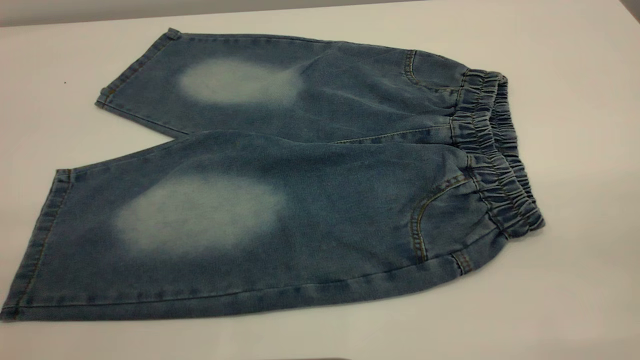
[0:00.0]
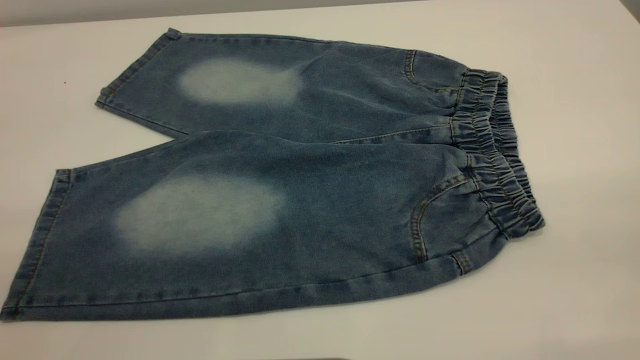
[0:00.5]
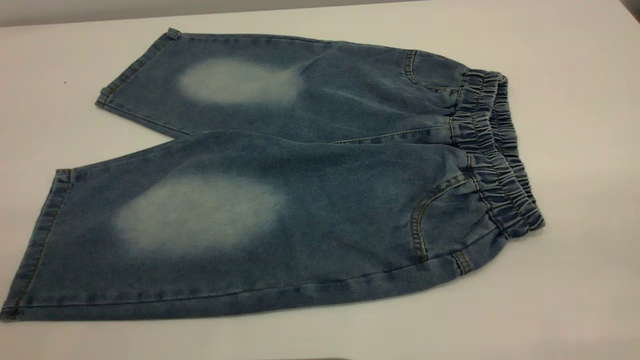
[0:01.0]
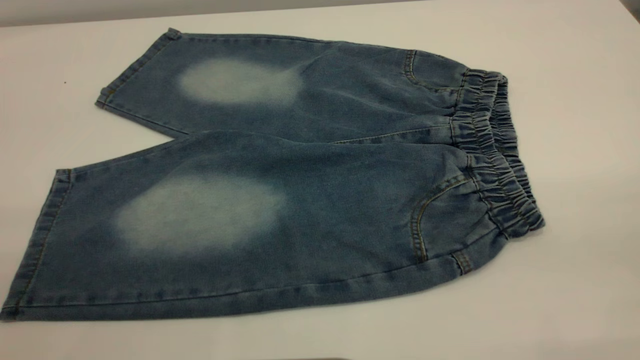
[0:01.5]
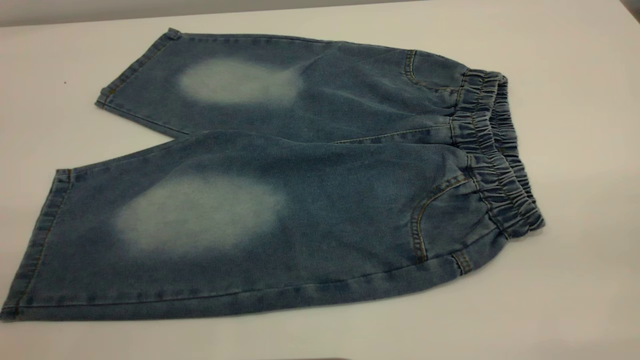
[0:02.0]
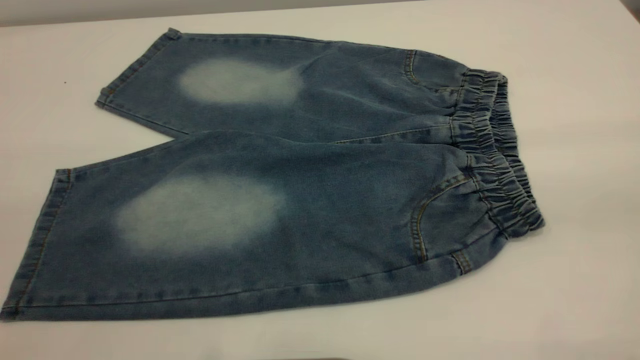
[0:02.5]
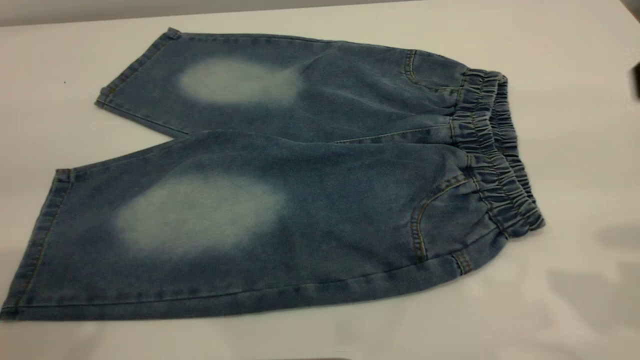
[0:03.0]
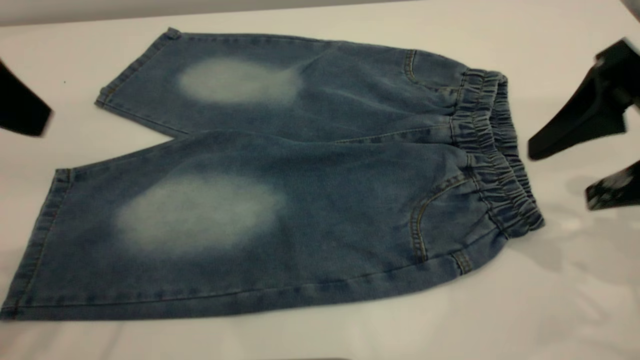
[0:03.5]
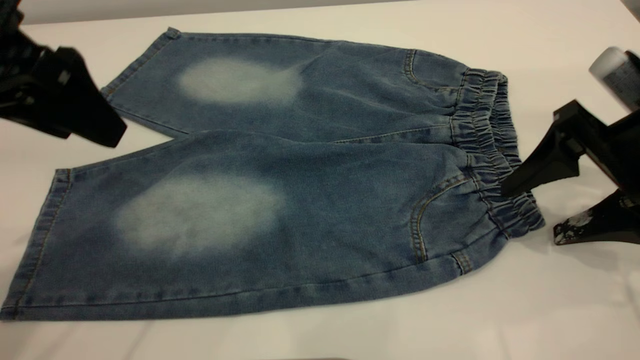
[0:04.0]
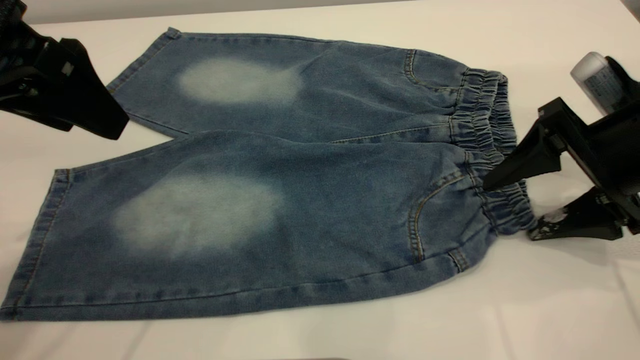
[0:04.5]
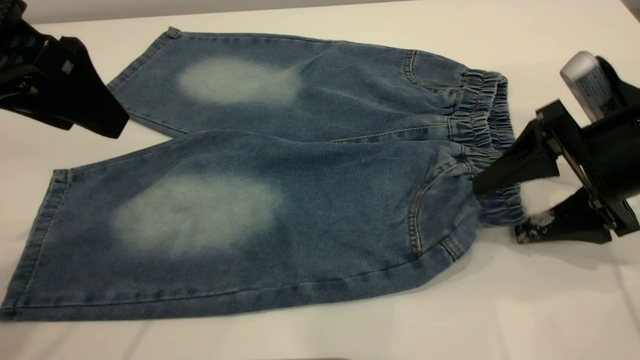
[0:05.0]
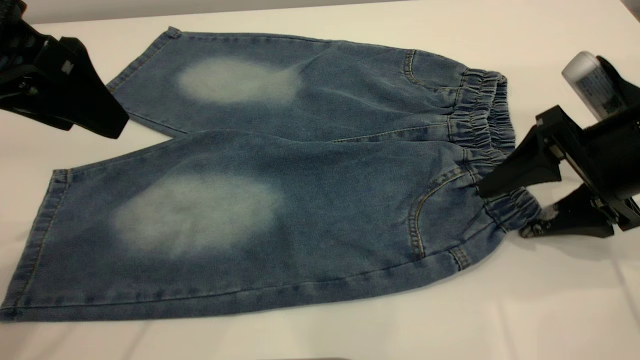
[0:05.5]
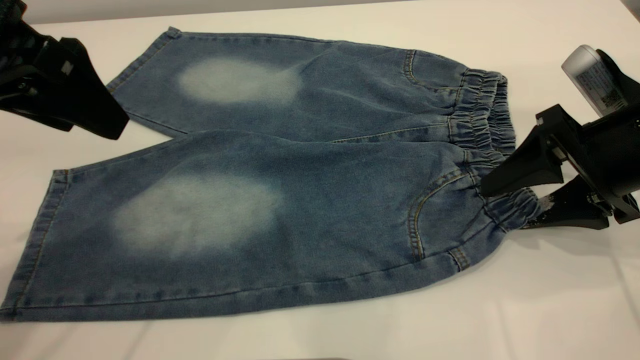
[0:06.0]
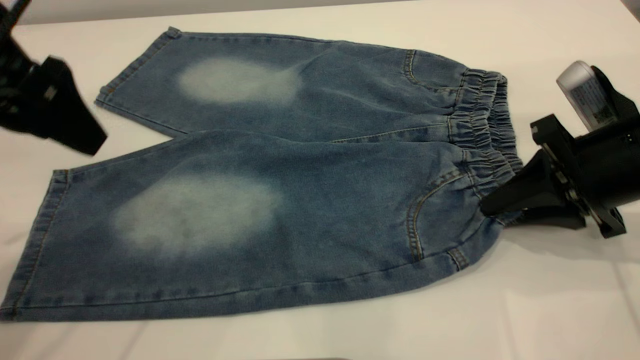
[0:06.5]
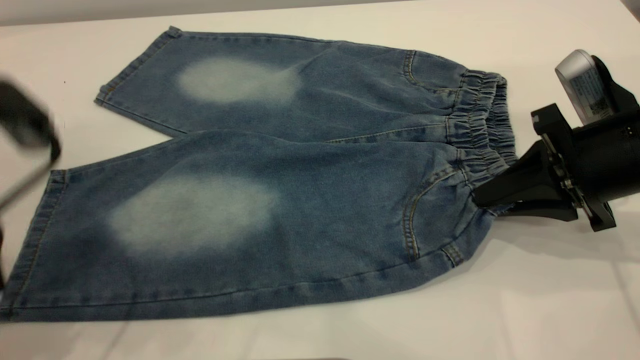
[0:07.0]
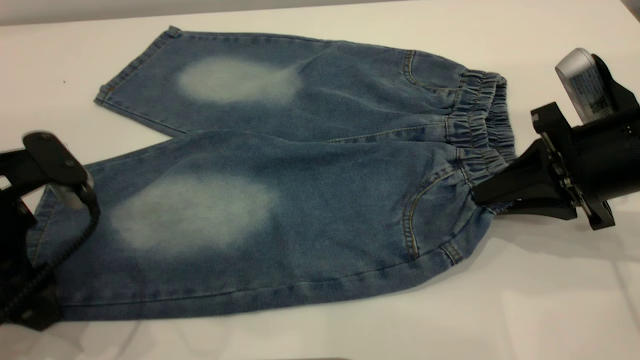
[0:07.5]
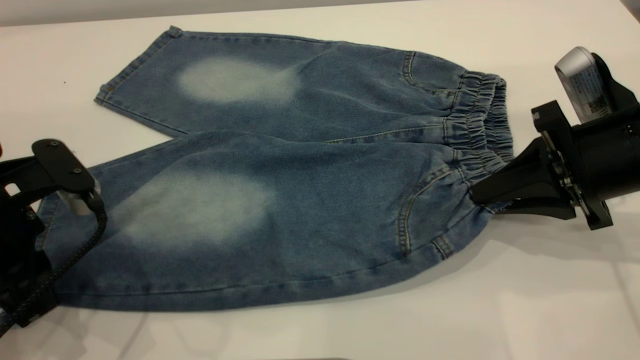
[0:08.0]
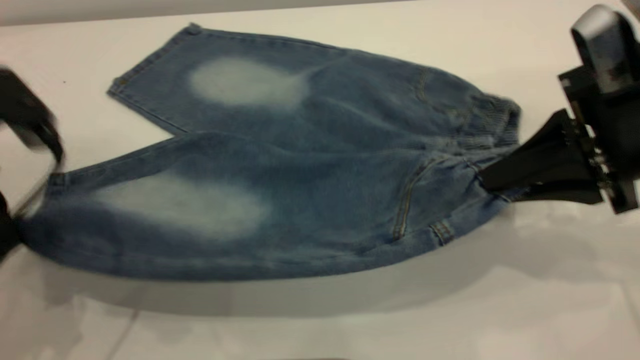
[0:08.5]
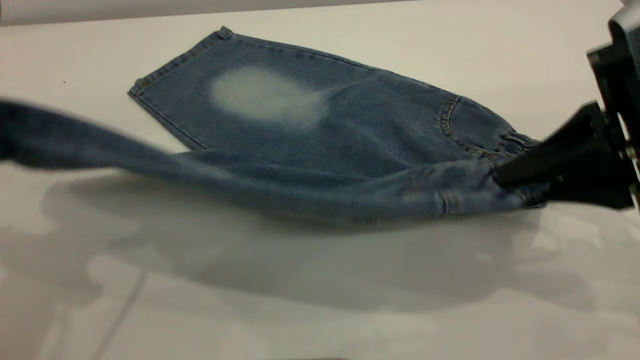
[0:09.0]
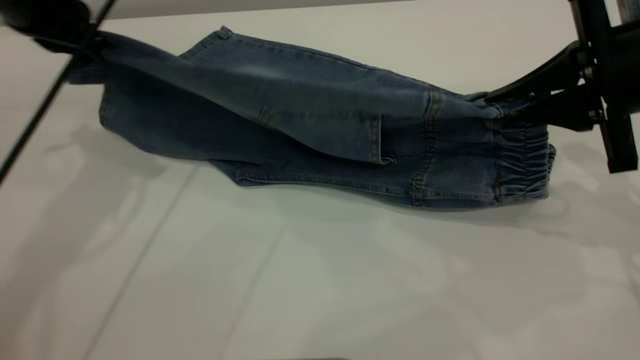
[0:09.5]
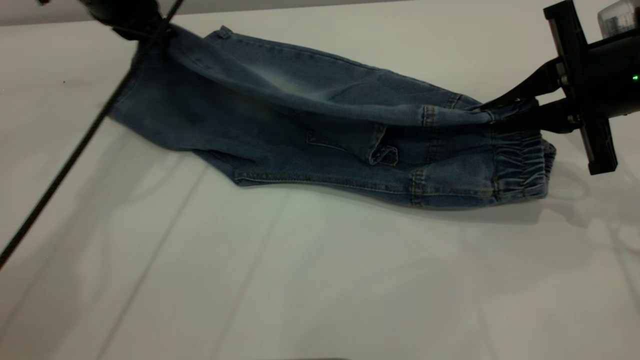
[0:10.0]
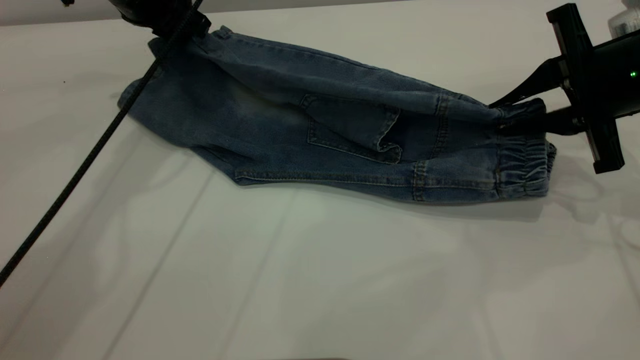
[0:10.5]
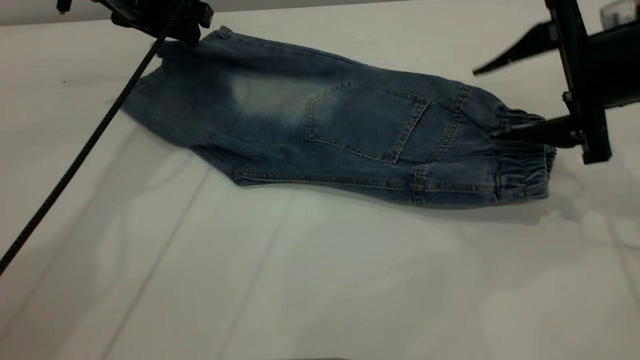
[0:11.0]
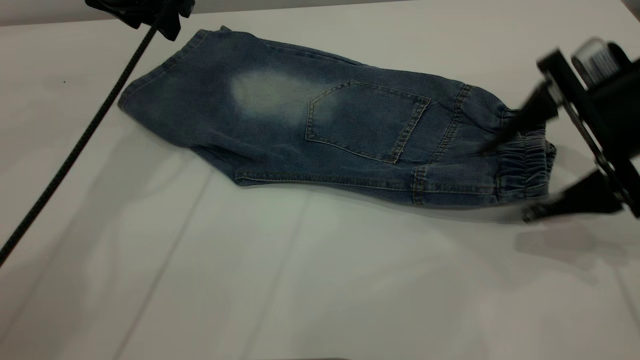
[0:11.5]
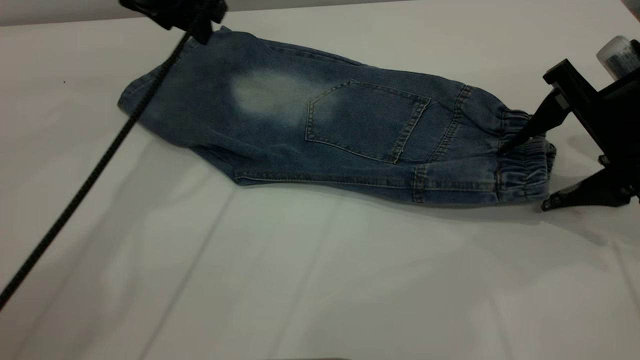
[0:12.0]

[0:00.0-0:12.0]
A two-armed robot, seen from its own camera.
Step, 0:00.0 to 0:11.0: Fold the bottom of the pants upward.
0:02.0 to 0:04.0: The left gripper shifts roughly 25 cm forward, and opens; the right gripper heads forward and downward, covering approximately 35 cm.
0:04.0 to 0:06.0: There are only small adjustments of the grippers.
0:06.0 to 0:08.0: The right gripper closes. Meanwhile the left gripper travels downward by some 15 cm, and closes up.
0:08.0 to 0:10.0: The left gripper travels forward by approximately 25 cm. The right gripper shifts by some 5 cm.
0:10.0 to 0:12.0: The right gripper opens. Meanwhile the left gripper changes place by approximately 5 cm, and opens.

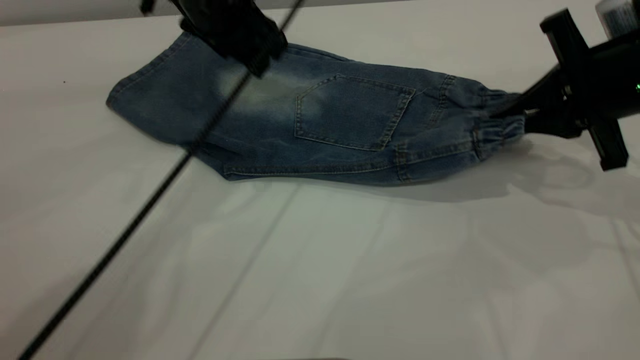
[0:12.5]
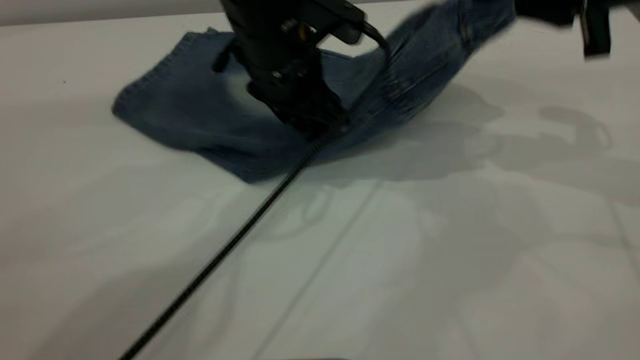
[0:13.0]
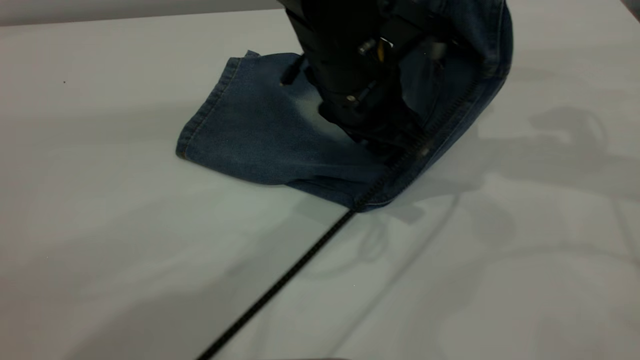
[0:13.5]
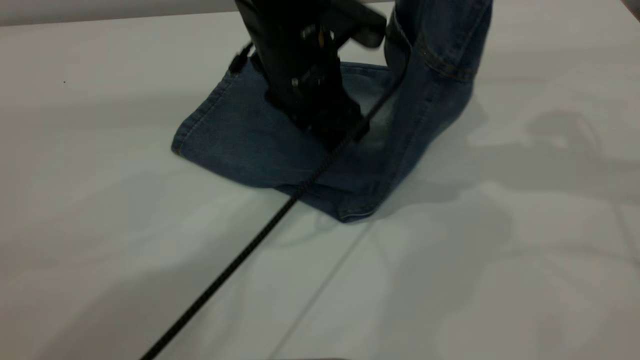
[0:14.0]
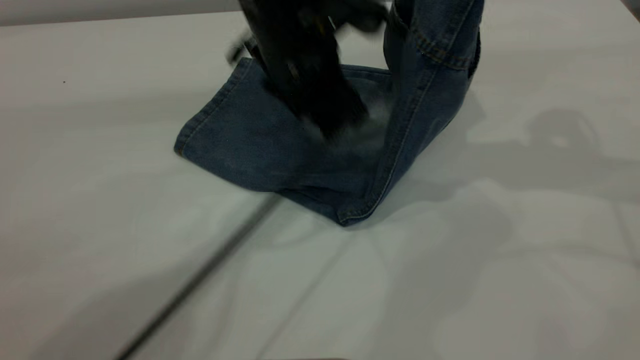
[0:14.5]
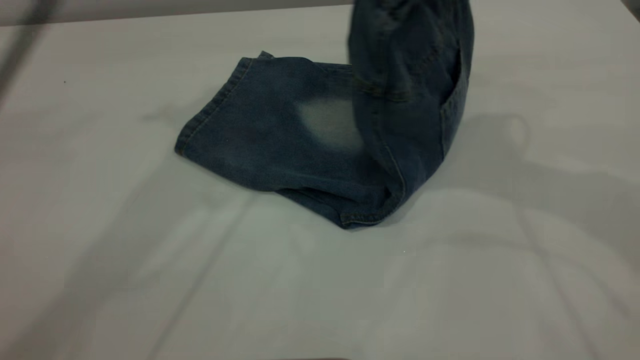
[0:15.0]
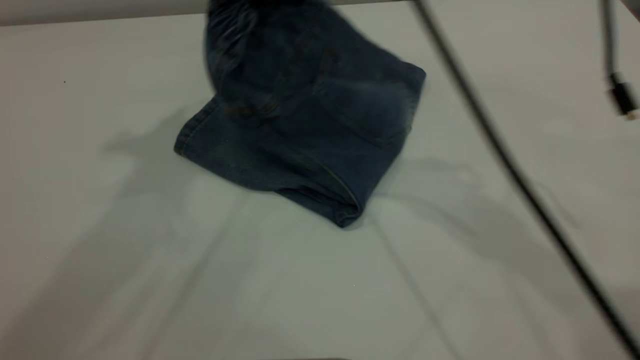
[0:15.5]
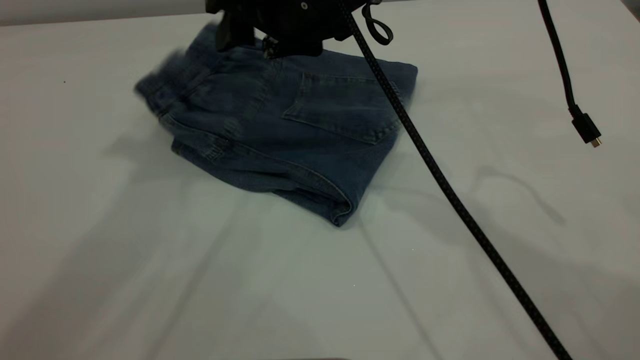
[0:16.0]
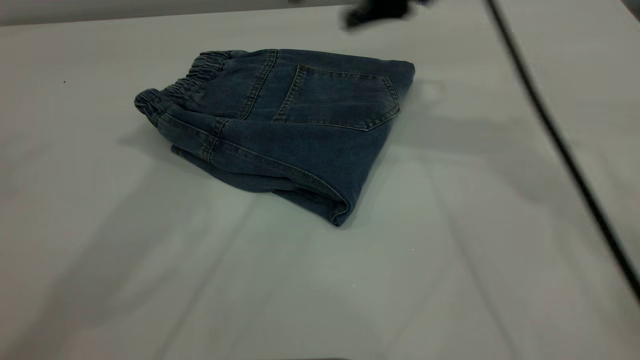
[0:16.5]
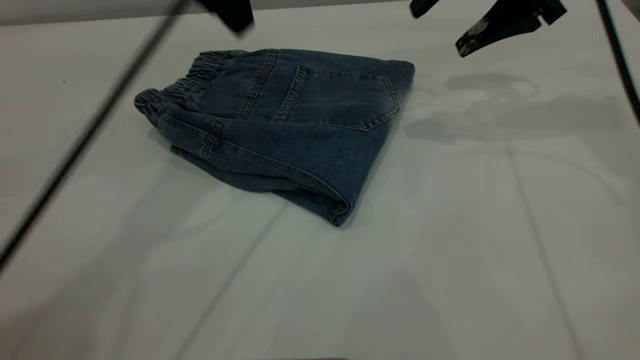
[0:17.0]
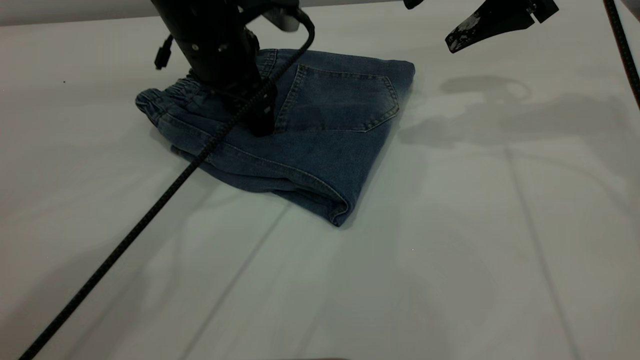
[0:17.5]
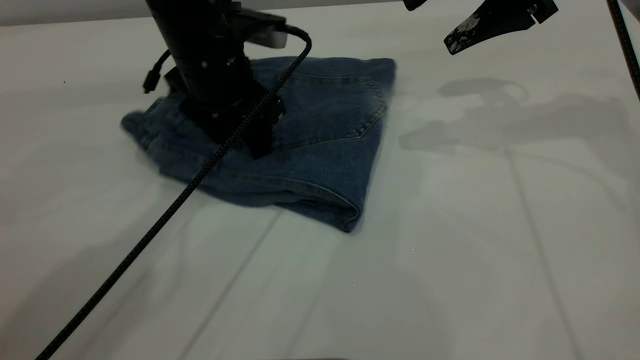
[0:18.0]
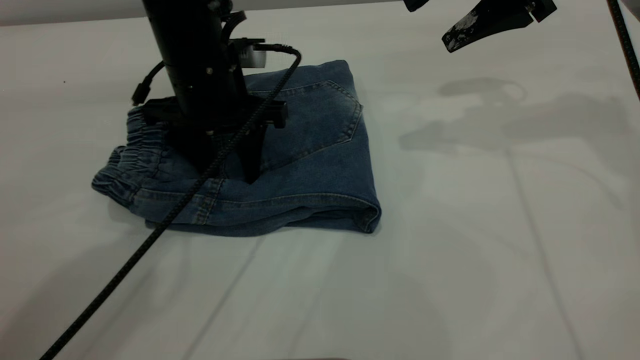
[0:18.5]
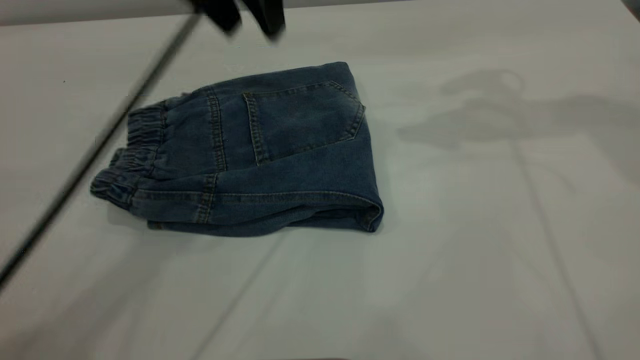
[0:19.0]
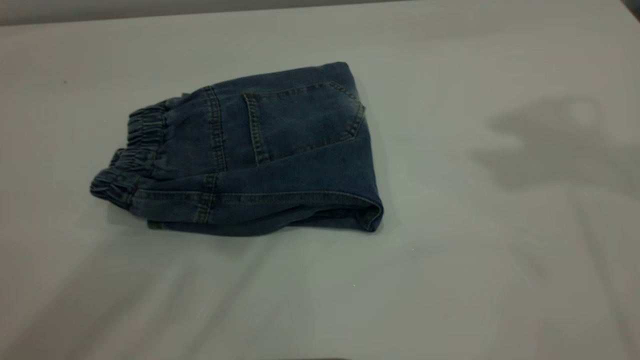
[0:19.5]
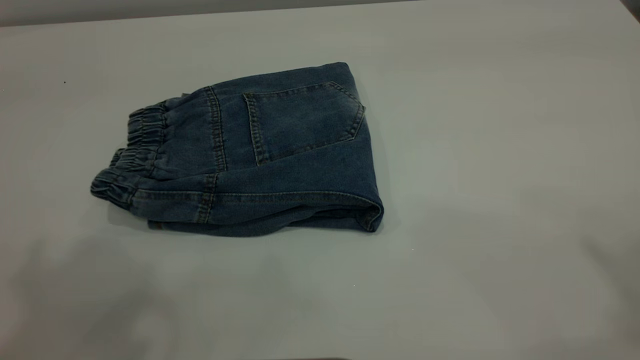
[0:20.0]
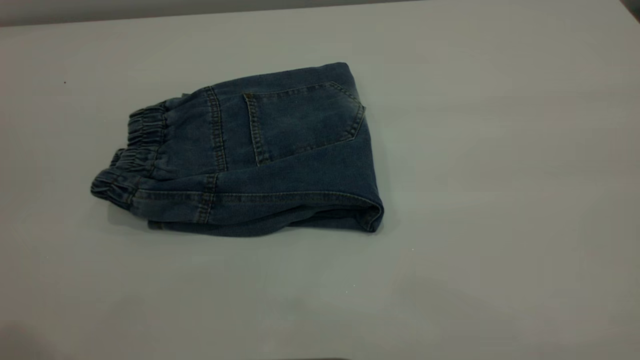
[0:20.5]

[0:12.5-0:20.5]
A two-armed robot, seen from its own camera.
Step, 0:12.5 to 0:16.0: Fold your pants from right to left.
0:12.5 to 0:14.5: The left gripper shifts some 5 cm to the right. The right gripper heads upward, covering about 15 cm.
0:14.5 to 0:16.5: The left gripper moves upward and to the left, approximately 25 cm, while the right gripper shifts approximately 15 cm to the left, forward and downward, and opens up.
0:16.5 to 0:18.5: The left gripper moves downward, some 25 cm, while the right gripper shifts some 10 cm to the right.
0:18.5 to 0:20.5: The left gripper shifts approximately 40 cm upward, backward and to the left. Meanwhile the right gripper travels backward and upward by approximately 40 cm.
